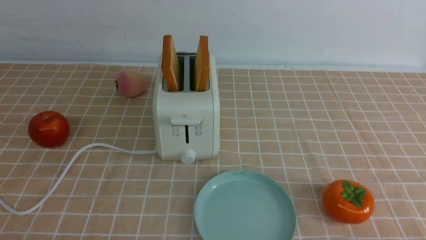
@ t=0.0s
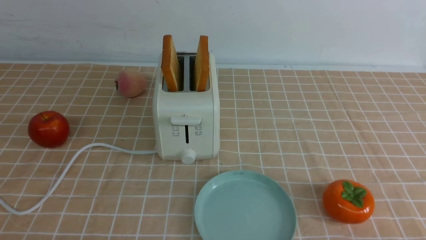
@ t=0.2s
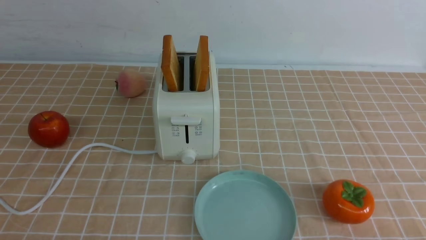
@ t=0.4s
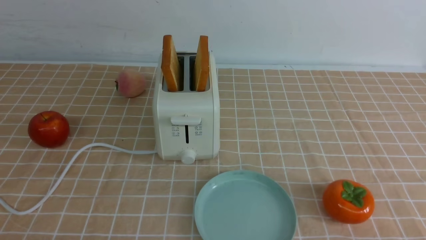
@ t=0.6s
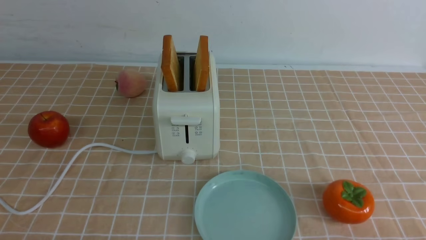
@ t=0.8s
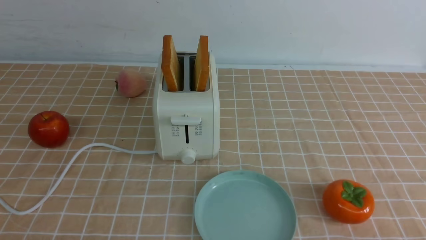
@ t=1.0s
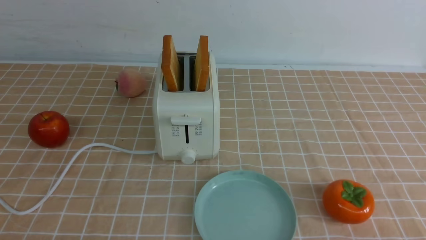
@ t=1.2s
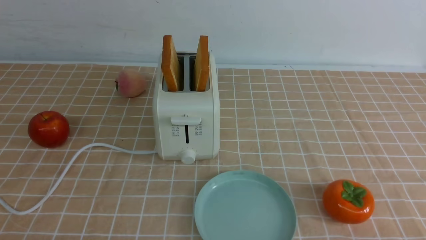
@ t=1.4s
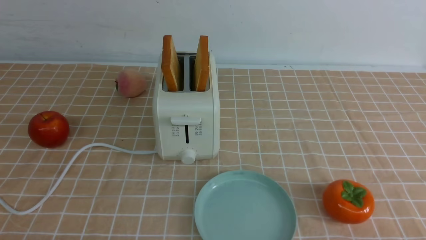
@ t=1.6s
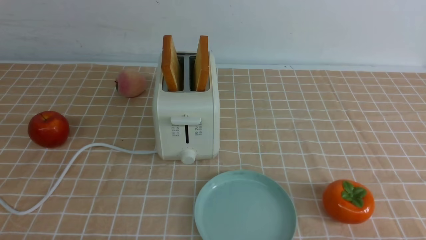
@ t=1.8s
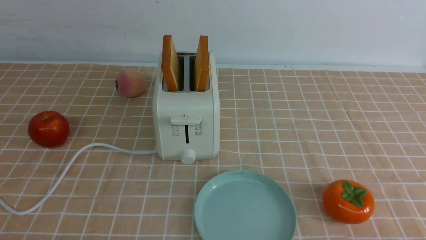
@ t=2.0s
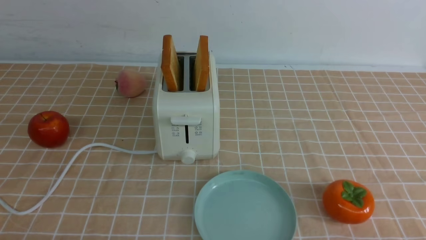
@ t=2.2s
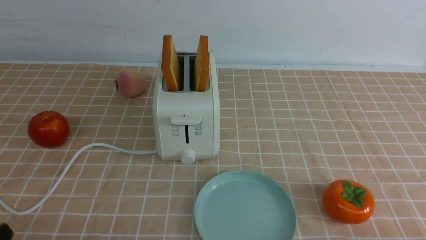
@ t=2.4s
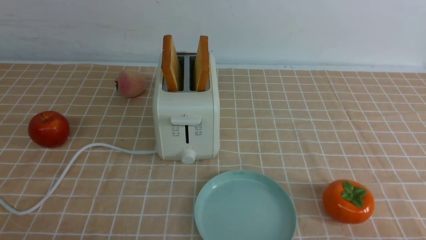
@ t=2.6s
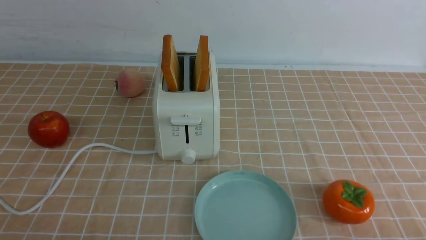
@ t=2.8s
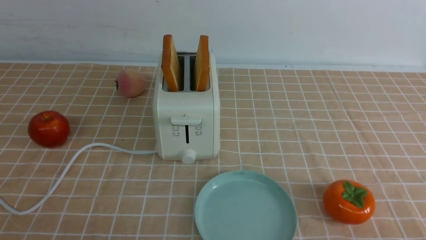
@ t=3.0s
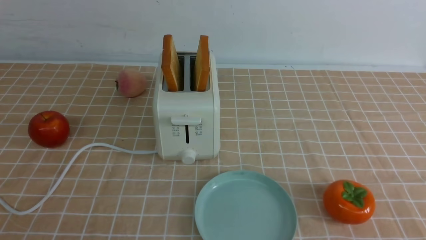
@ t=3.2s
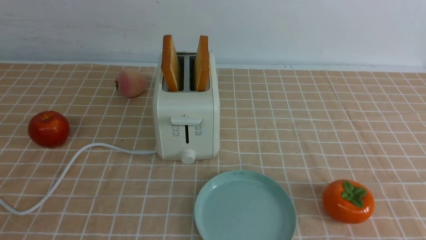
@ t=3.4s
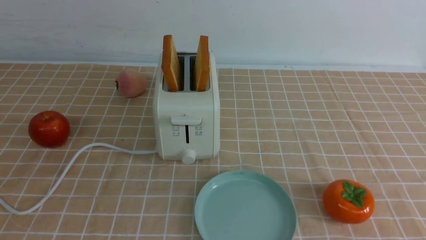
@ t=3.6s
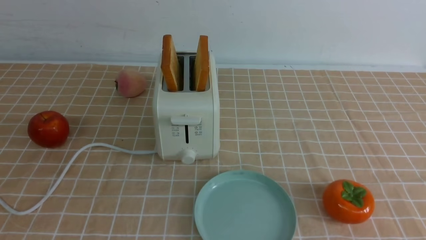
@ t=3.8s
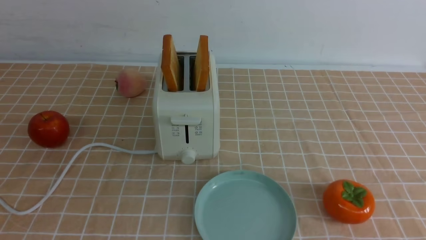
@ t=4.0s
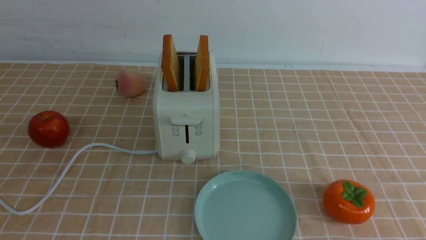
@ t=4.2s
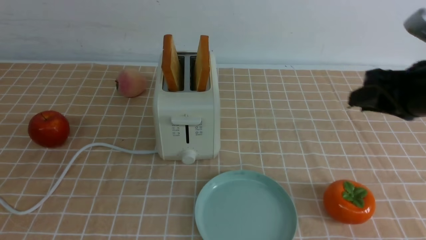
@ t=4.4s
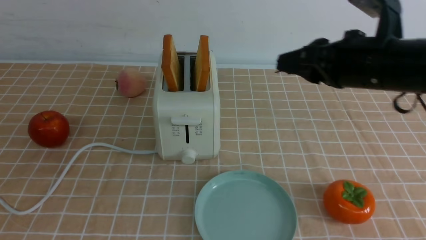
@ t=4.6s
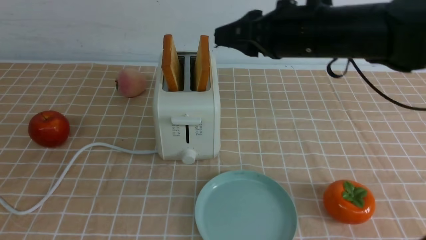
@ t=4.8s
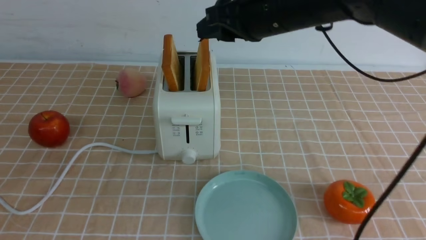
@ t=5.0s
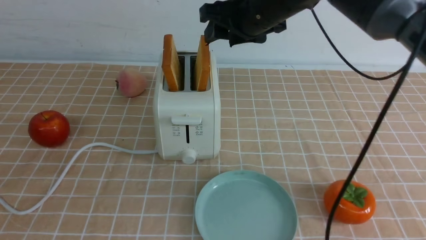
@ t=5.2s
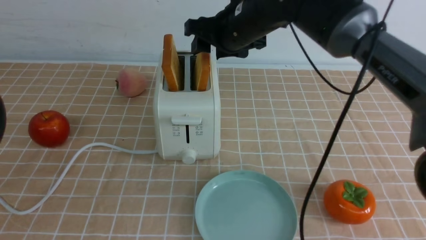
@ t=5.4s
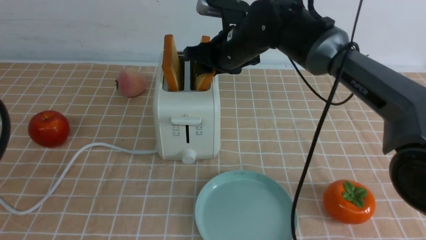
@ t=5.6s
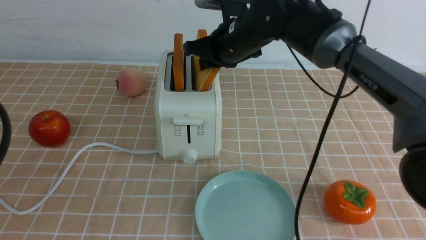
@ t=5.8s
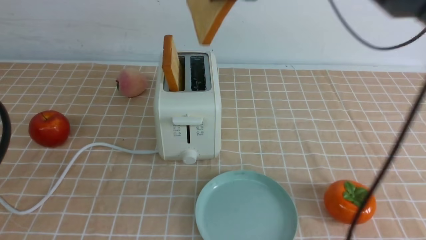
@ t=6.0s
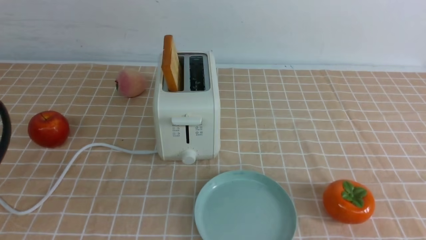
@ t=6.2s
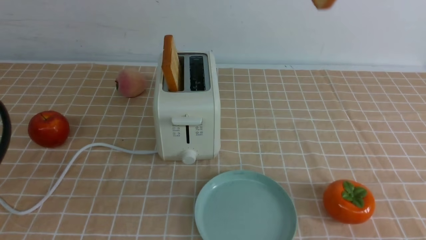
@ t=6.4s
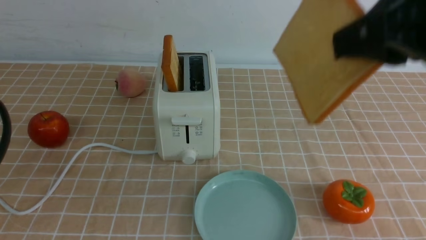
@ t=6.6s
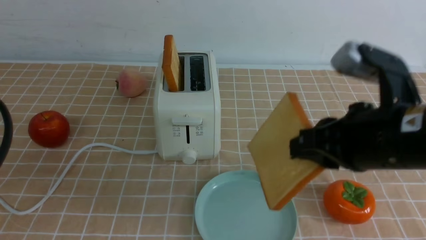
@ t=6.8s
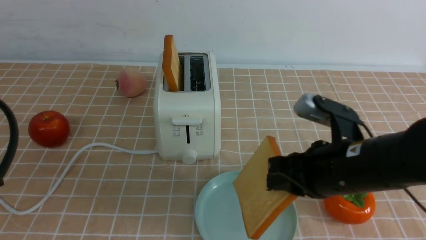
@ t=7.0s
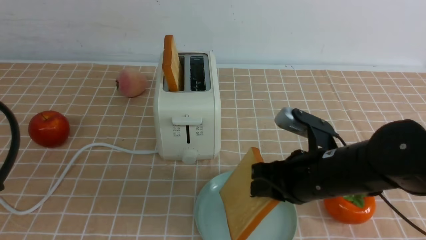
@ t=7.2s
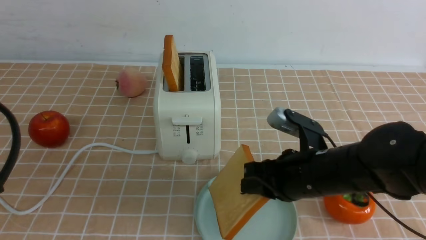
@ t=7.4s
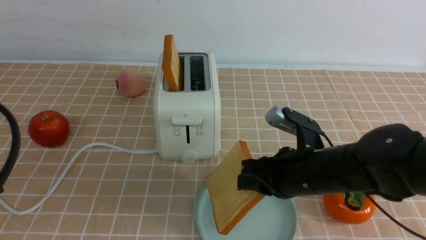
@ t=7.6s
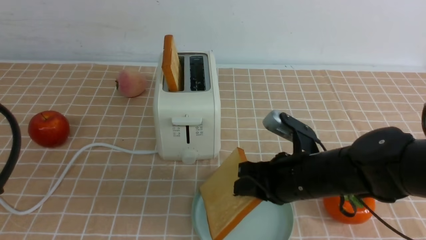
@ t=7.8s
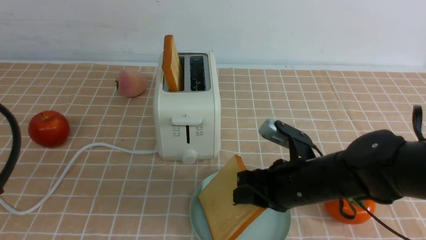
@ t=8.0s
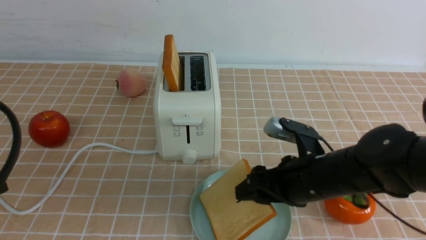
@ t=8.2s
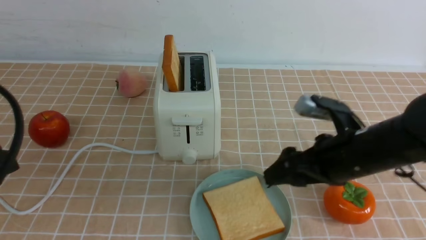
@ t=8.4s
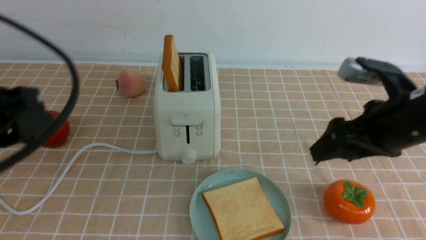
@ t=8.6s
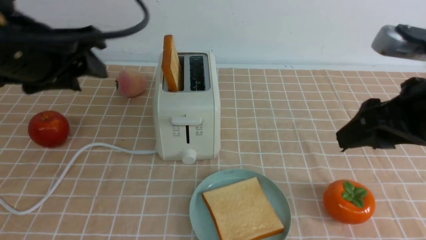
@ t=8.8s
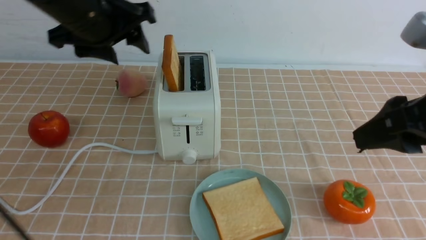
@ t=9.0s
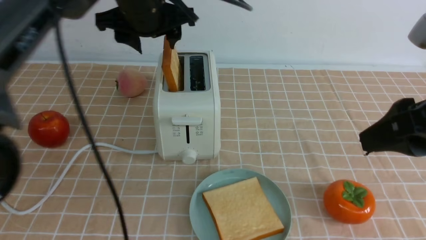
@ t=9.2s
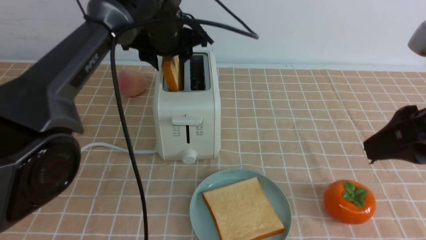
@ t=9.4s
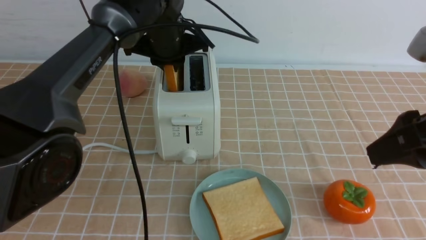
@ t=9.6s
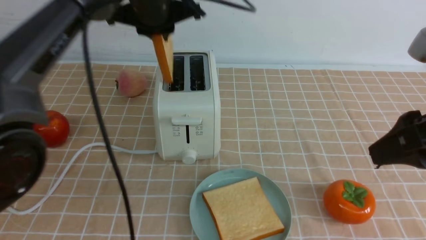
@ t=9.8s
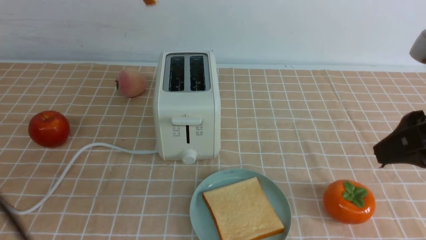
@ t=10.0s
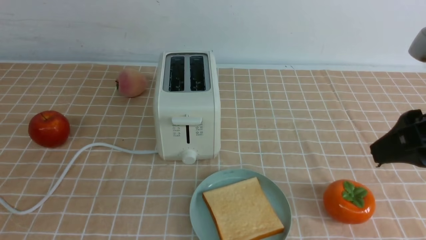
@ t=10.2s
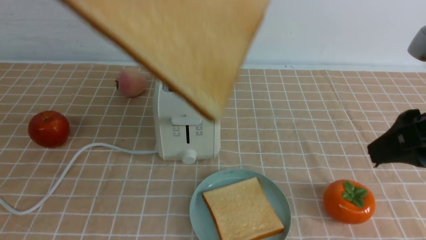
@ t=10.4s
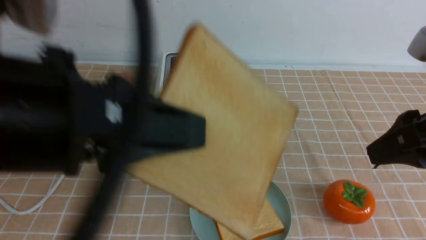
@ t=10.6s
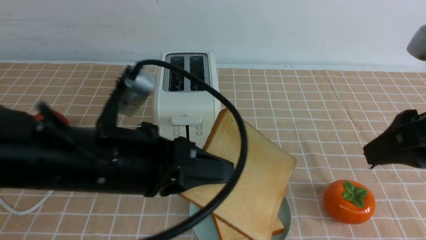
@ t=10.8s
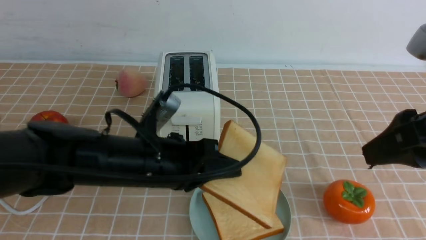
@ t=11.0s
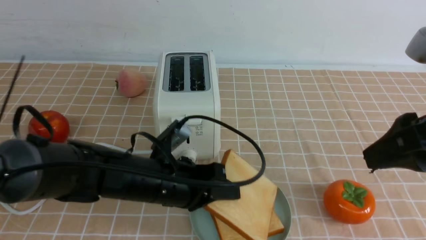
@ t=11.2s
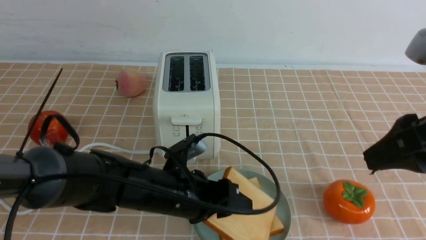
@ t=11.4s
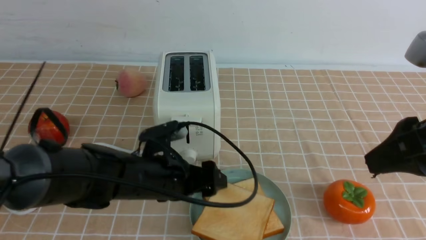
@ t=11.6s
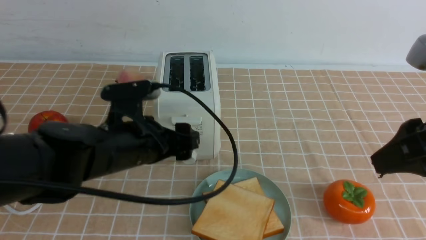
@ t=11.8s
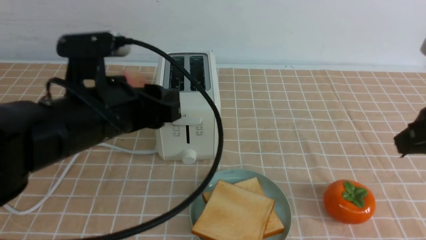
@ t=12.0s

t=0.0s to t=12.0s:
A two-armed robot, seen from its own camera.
Task of the whole recording: take toasted bread from bread machine on light coffee tablecloth place on plate.
Step, t=0.0s to t=5.8s: use the right arm to take out a slice of bread.
Step, t=6.0s to t=8.4s: use the right arm to put a slice of bread into the plate.
Step, t=8.6s to t=9.6s: use the left arm to take out a slice of bread.
Step, t=9.8s to t=11.6s: use the left arm to put a slice of bread into the empty plate.
t=0.0s to t=1.6s: Both grippers stay put.
t=3.0s to t=4.4s: The right gripper shifts some 25 cm forward and upward. The left gripper is displaced upward and forward by some 15 cm.
t=4.4s to t=6.0s: The right gripper travels to the left, upward and forward by roughly 20 cm.
t=6.0s to t=7.6s: The right gripper heads downward and backward, covering roughly 30 cm.
t=7.6s to t=9.0s: The right gripper travels upward and to the right by roughly 20 cm, and opens, while the left gripper goes about 25 cm forward, and opens up.
t=9.0s to t=10.4s: The left gripper shifts approximately 25 cm backward and upward, and closes its fingers.
t=10.4s to t=12.0s: The left gripper heads downward and forward, covering some 20 cm, and opens up. The right gripper closes.

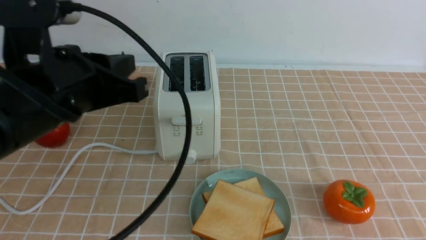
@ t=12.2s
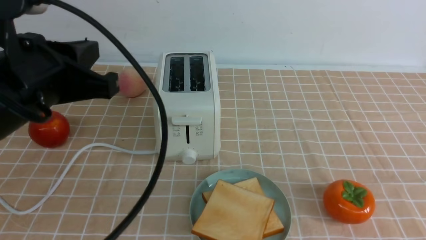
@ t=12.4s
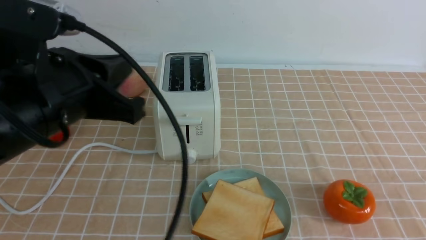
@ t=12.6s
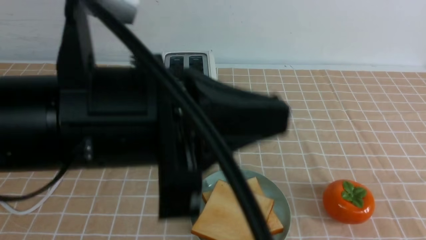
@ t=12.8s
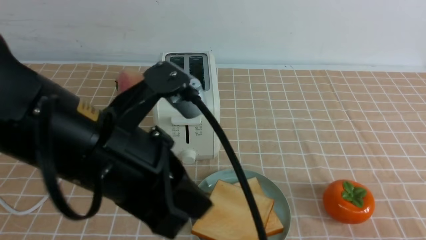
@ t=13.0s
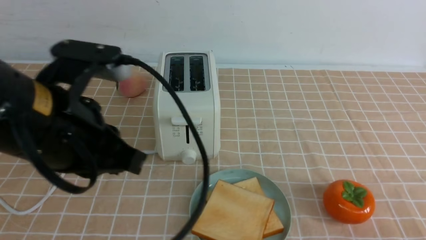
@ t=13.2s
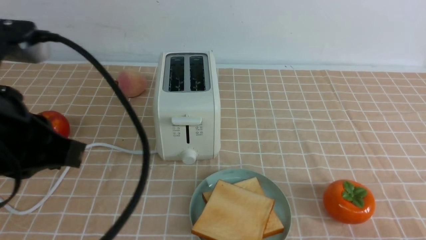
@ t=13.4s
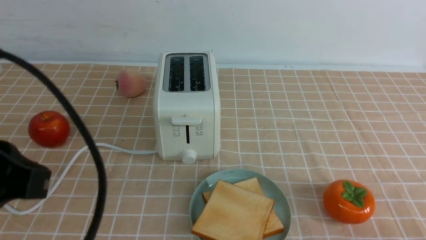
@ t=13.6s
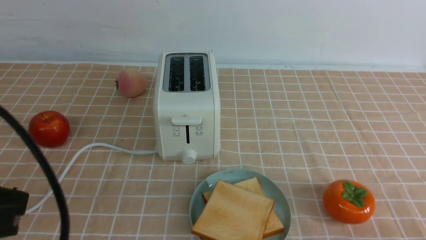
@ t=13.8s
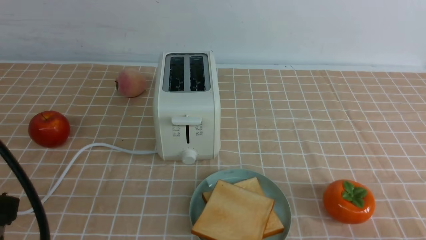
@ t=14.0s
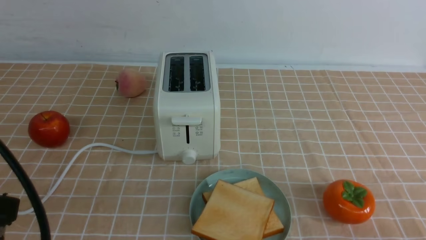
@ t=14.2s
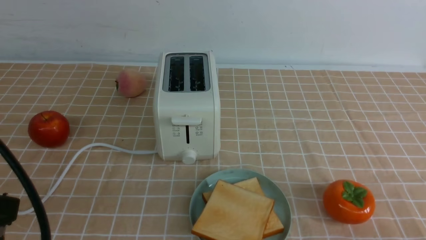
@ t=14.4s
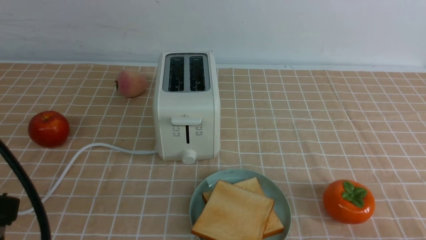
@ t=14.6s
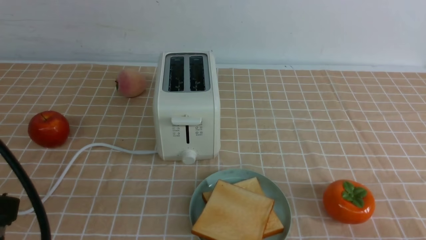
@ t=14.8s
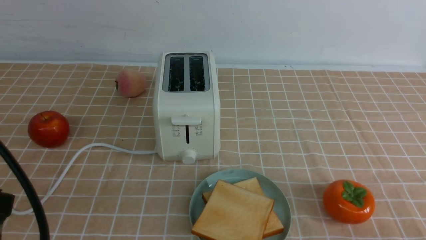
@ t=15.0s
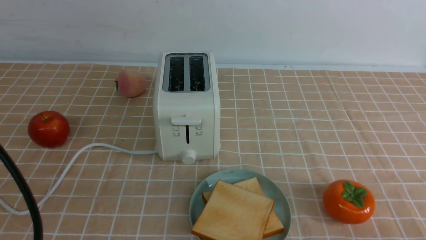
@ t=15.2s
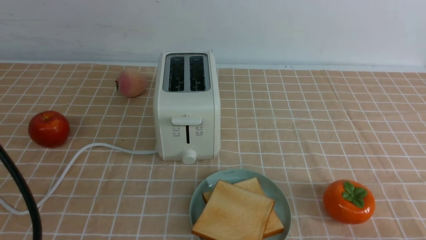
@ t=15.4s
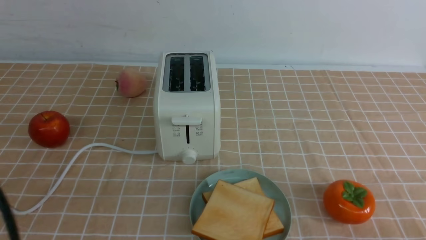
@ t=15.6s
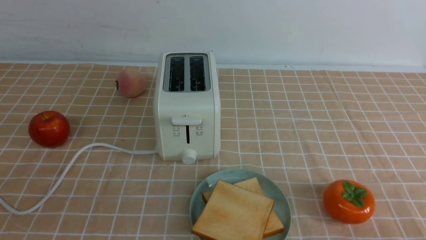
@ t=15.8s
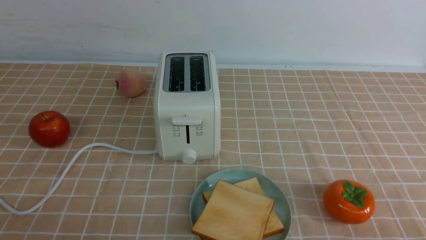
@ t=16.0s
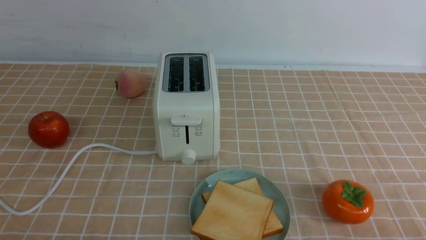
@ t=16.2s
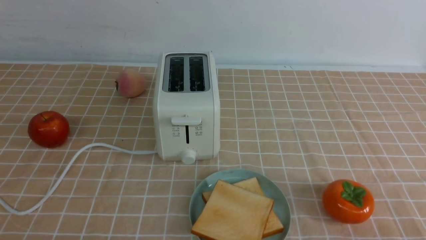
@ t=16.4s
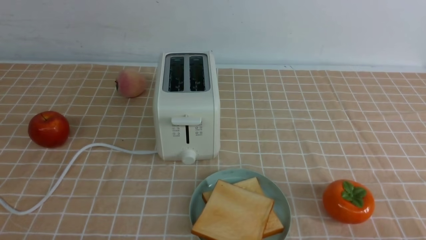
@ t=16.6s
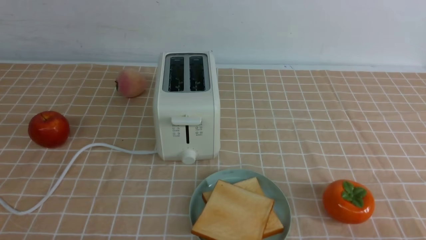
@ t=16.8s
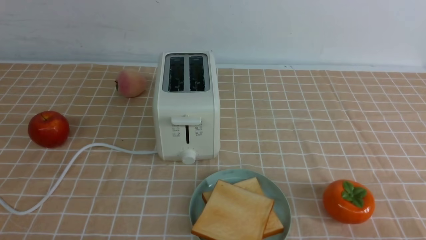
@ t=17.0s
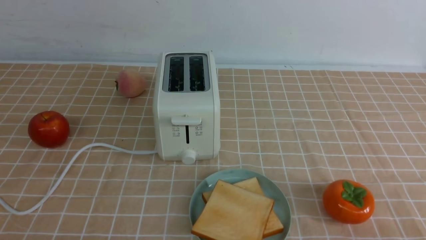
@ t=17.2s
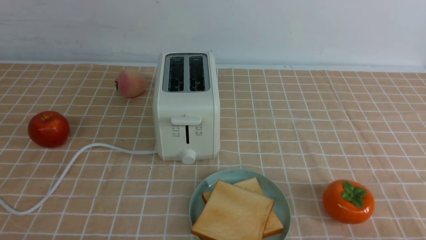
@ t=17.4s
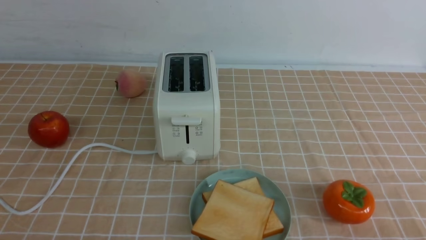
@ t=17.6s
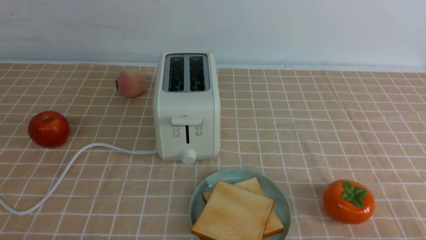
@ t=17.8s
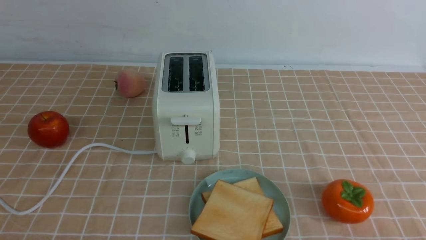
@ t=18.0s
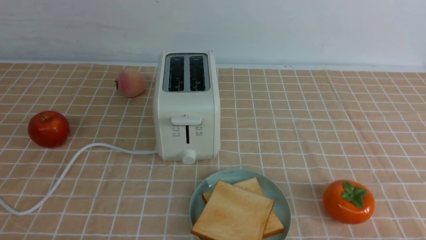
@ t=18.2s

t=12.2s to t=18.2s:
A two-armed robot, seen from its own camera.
Task of the whole recording: take toasted bread from bread machine on light coffee tablecloth place on plate.
t=12.2s to t=13.8s: The left gripper heads backward, covering about 10 cm. The right gripper shifts approximately 15 cm downward and backward.
t=13.8s to t=15.2s: There are only small adjustments of the grippers.
t=15.2s to t=16.6s: The left gripper is displaced downward by approximately 20 cm.
